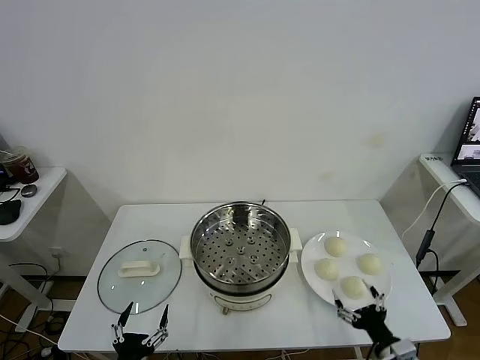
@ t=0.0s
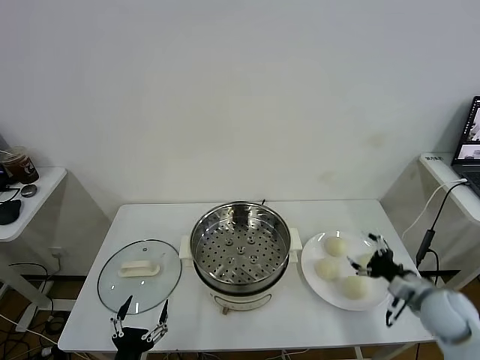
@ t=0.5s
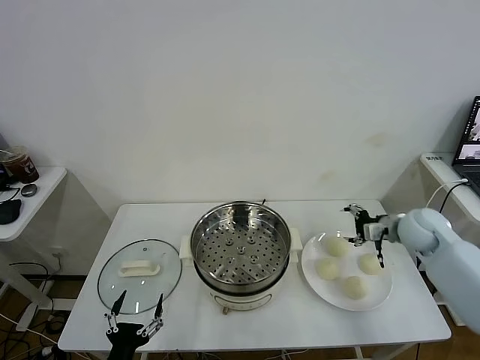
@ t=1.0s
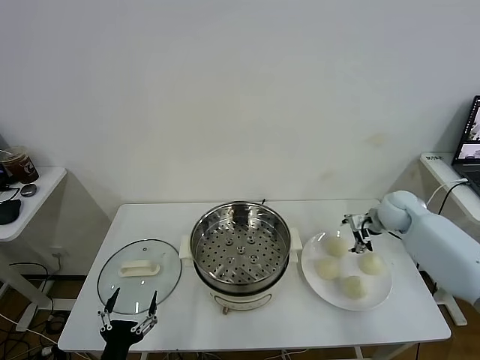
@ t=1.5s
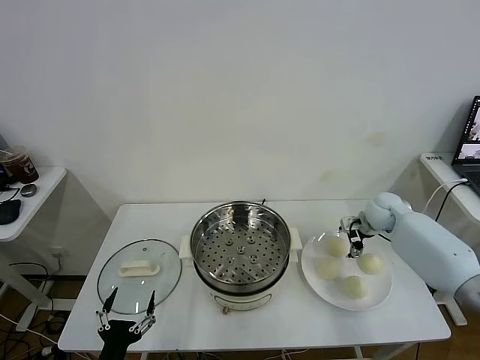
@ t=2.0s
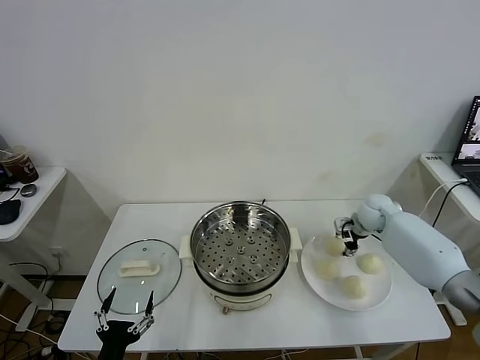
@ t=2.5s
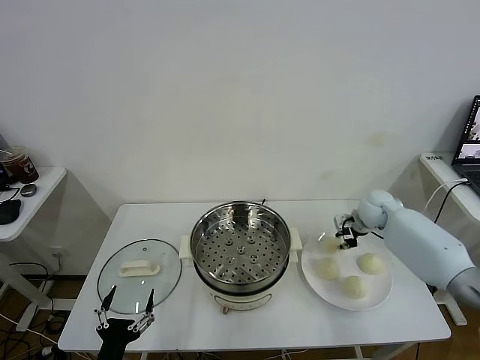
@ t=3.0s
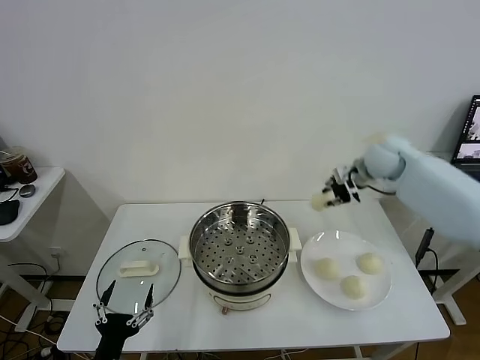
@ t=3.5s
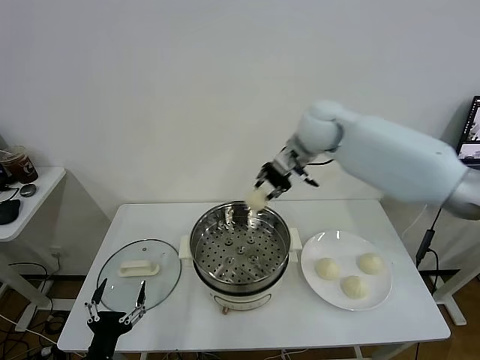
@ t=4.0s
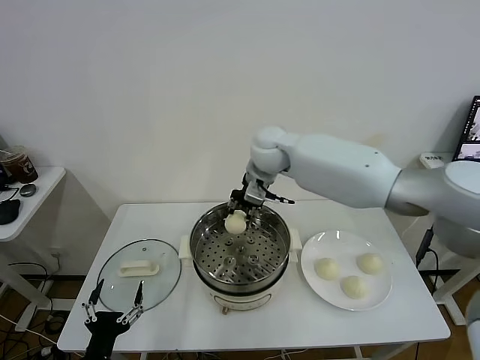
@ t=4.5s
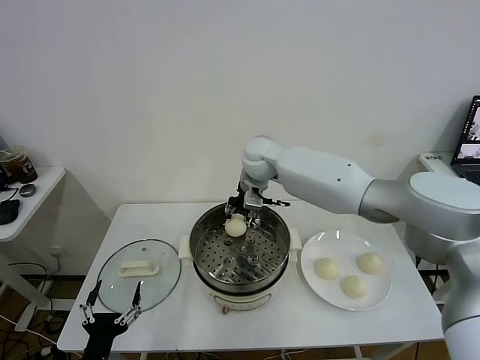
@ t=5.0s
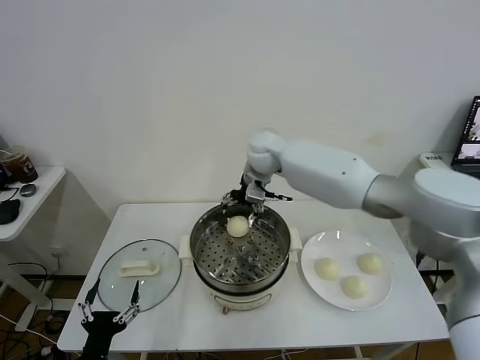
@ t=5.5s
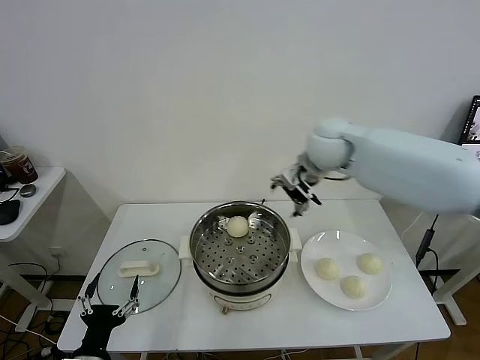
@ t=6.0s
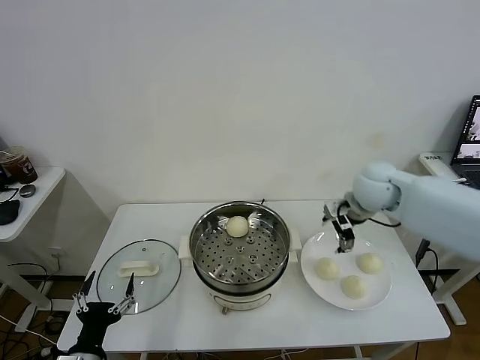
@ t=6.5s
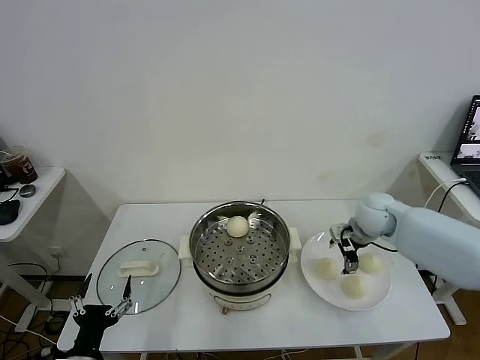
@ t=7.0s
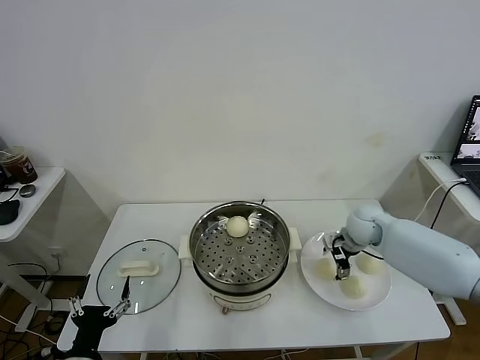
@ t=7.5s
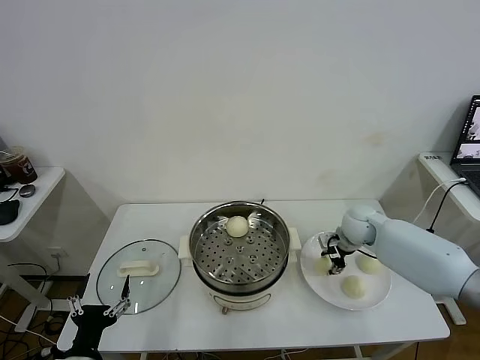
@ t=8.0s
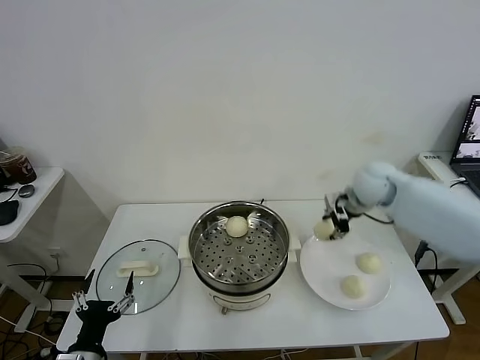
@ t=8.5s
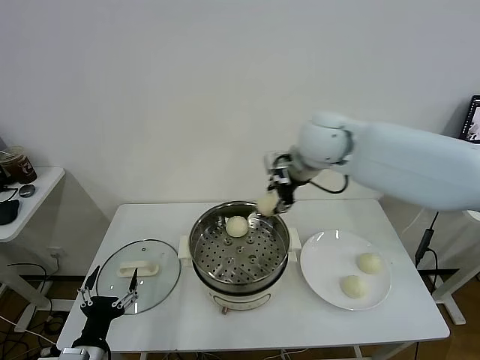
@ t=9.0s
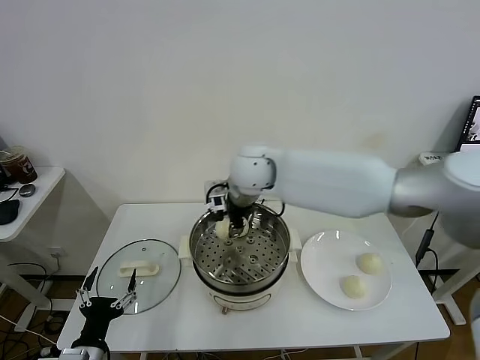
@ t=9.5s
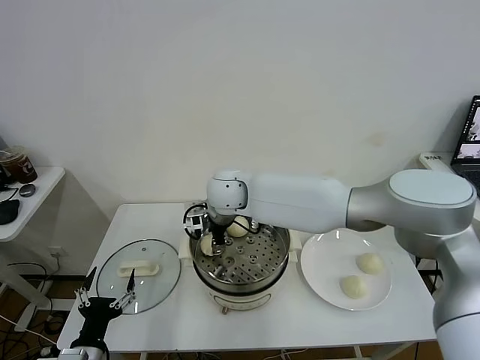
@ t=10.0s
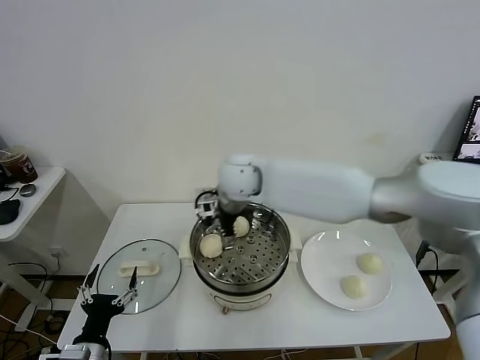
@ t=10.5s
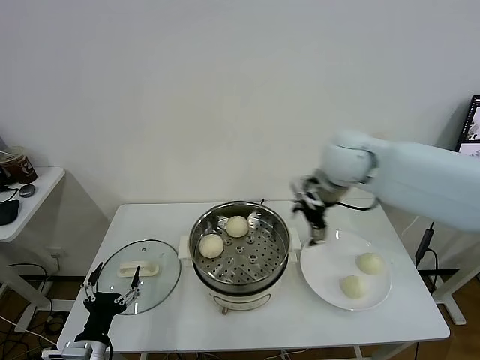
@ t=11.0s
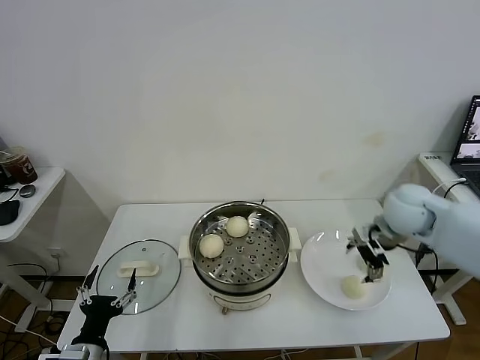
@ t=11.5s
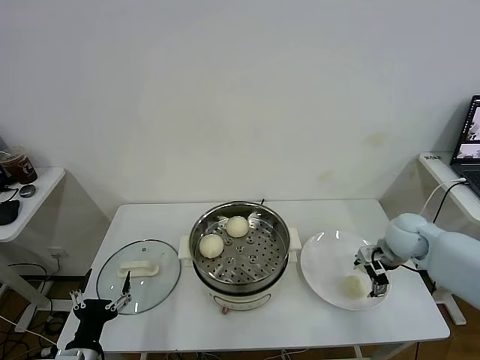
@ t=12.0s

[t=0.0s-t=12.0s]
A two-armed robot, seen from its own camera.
Task of the whole recording: take steamed baozi put them in steamer.
Step, t=0.0s to t=2.5s: Grasp the baozi in the plate with right gripper.
Step, t=3.0s to t=5.5s: Place the baozi on the steamer with right gripper.
Step, t=6.0s to t=7.5s: Grasp the baozi in the plate with right gripper.
Step, t=8.5s to t=10.0s: Place the baozi on the steamer with right gripper.
t=2.0s to t=4.0s: The right gripper shifts about 30 cm upward and to the left, and closes.
t=4.0s to t=6.0s: The right gripper reaches about 10 cm to the left, then returns, and opens.
t=6.0s to t=8.0s: The right gripper shifts about 25 cm downward and to the right, and closes its fingers.
t=8.0s to t=10.0s: The right gripper travels to the left by about 35 cm.
t=10.0s to t=12.0s: The right gripper shifts about 40 cm to the right, and opens its fingers.

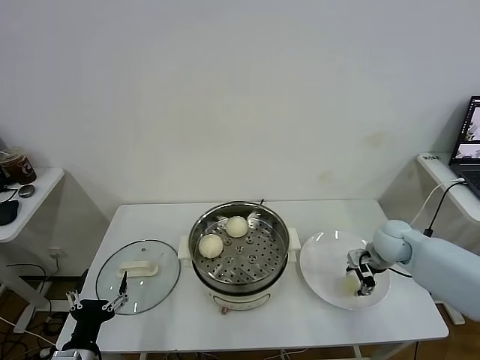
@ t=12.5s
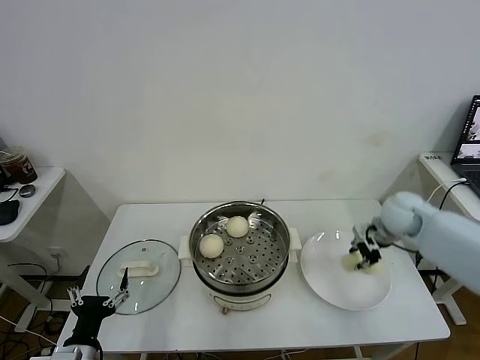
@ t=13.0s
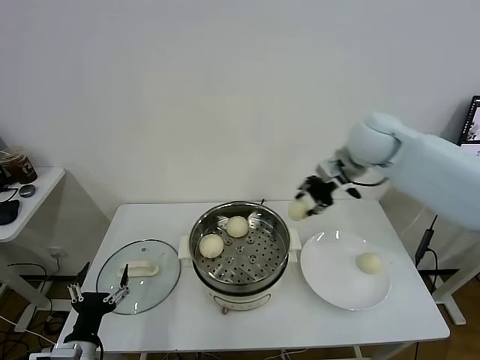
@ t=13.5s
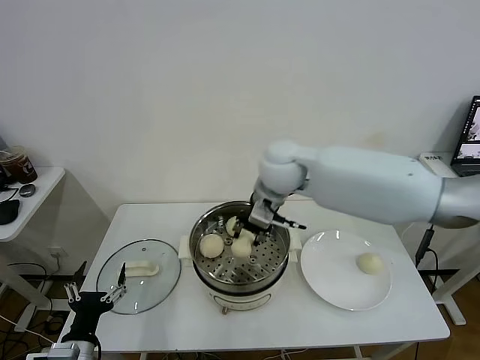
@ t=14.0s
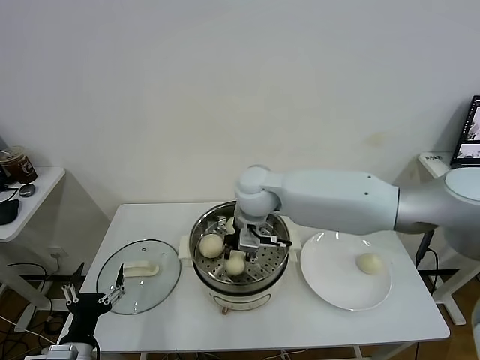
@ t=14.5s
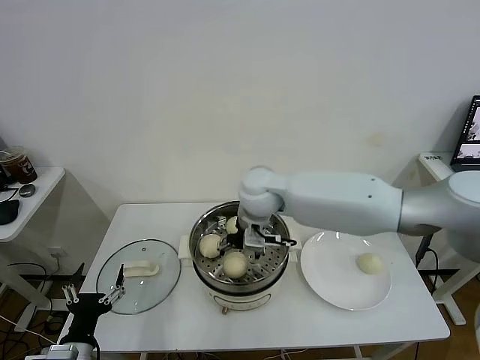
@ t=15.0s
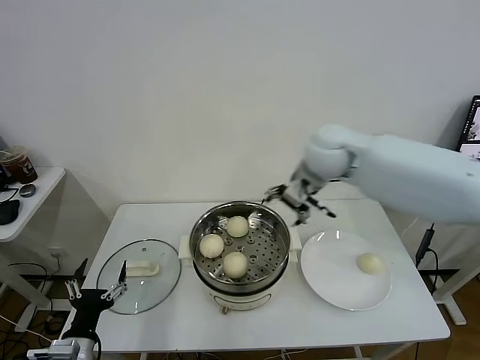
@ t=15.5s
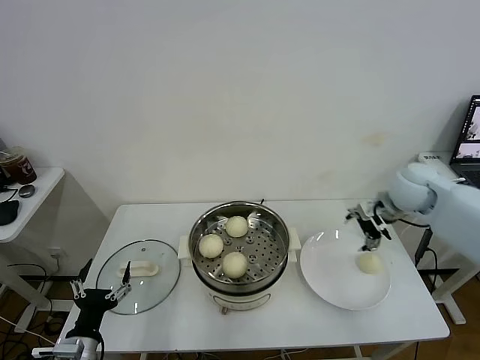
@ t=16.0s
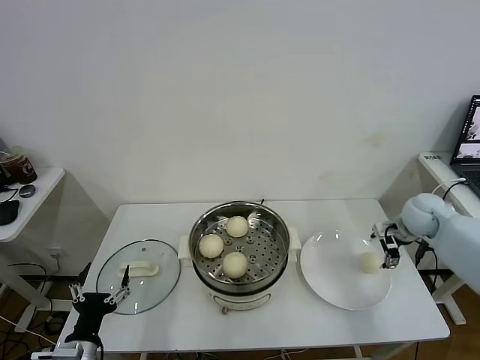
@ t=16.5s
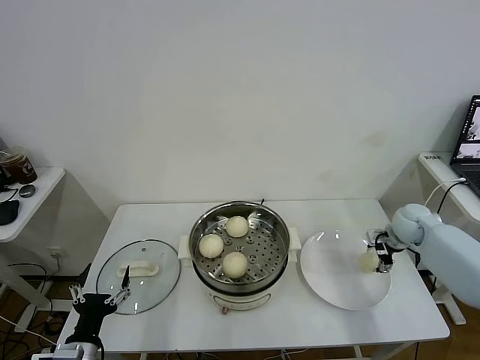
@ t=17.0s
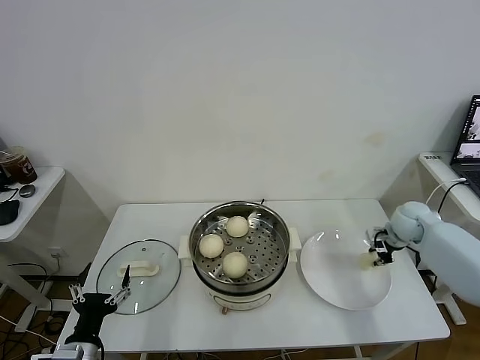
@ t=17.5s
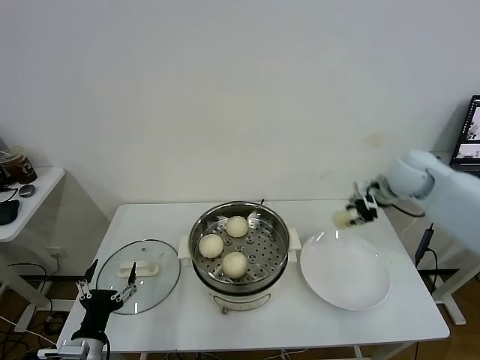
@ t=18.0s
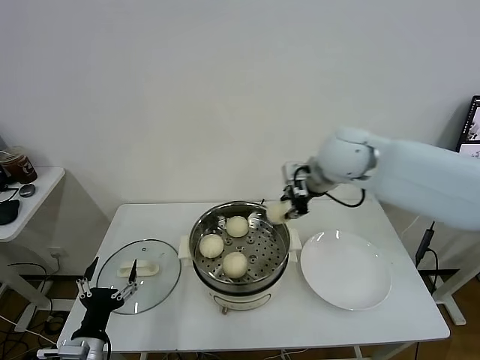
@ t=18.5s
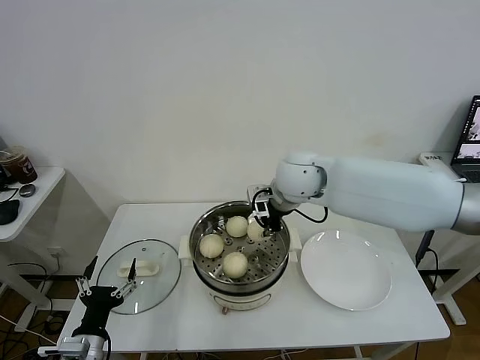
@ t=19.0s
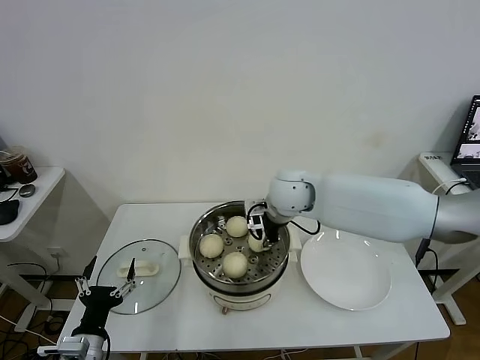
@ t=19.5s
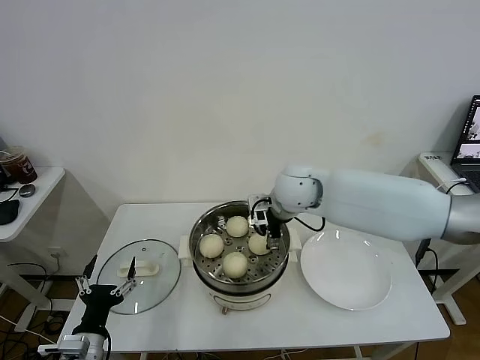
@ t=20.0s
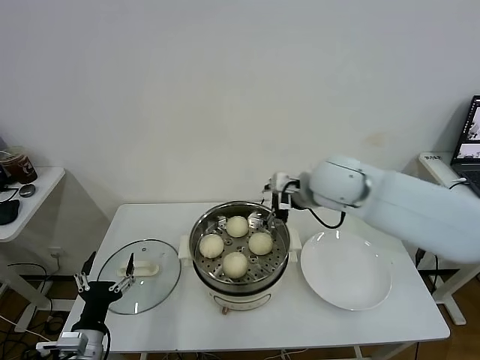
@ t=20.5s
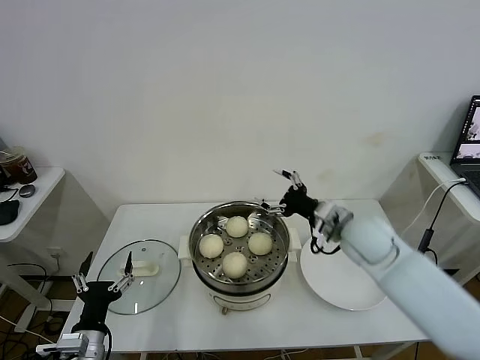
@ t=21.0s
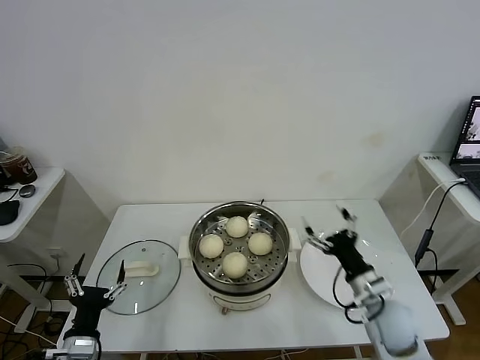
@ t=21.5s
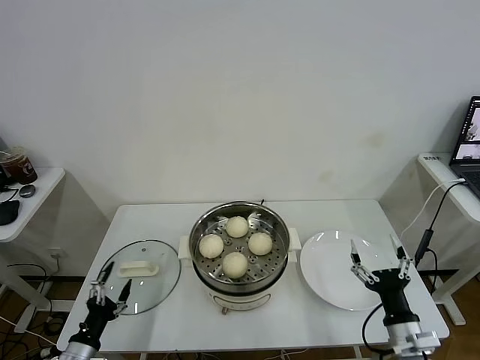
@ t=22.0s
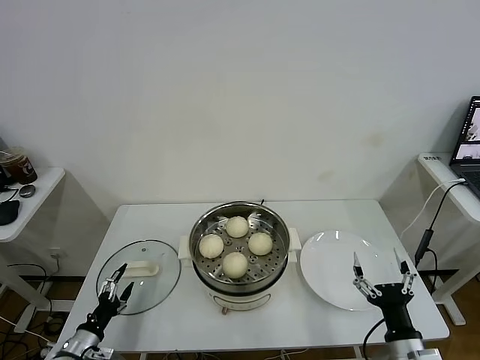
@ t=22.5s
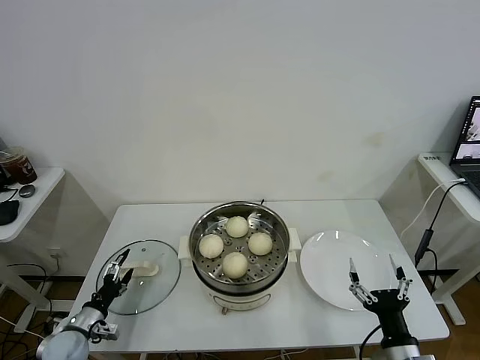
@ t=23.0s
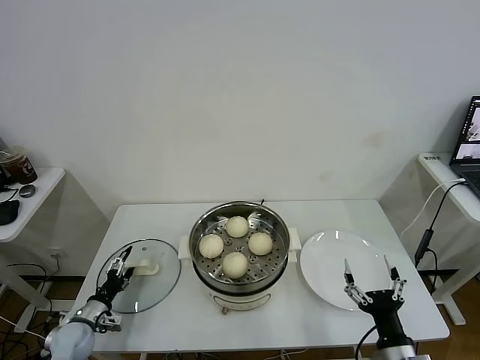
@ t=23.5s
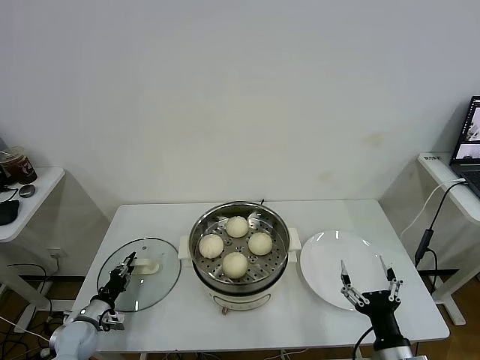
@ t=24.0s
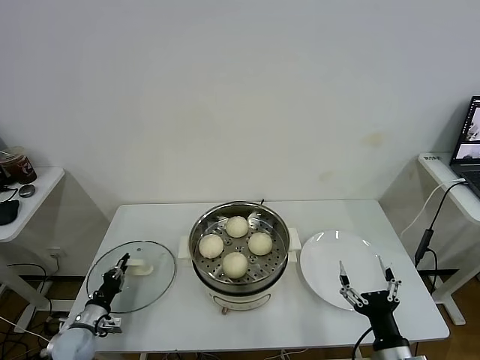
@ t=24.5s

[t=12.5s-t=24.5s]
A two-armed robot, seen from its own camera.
Task of the whole recording: take steamed baozi put them in steamer.
Step, t=13.0s to t=15.0s: Place the baozi on the steamer with right gripper.
Step, t=15.5s to t=17.0s: Grasp the baozi in the plate with right gripper.
Step, t=17.5s to t=20.0s: Place the baozi on the steamer with right gripper.
Step, t=20.5s to t=24.0s: Grasp the pot lid with left gripper.
t=12.5s to t=14.5s: The right gripper heads to the left and upward, covering about 35 cm.
t=14.5s to t=16.5s: The right gripper heads to the right, covering about 40 cm, and opens.
t=16.5s to t=18.5s: The right gripper is displaced to the left and upward by about 30 cm, and closes its fingers.
t=18.5s to t=20.5s: The right gripper opens.
t=20.5s to t=22.5s: The right gripper moves backward, downward and to the right, about 40 cm. Meanwhile the left gripper shifts roughly 10 cm downward and to the left.
t=22.5s to t=24.5s: The left gripper travels forward by some 10 cm, and closes its fingers.

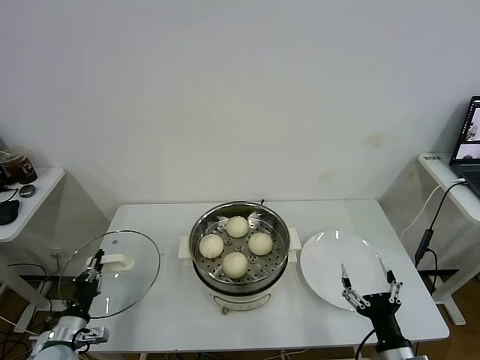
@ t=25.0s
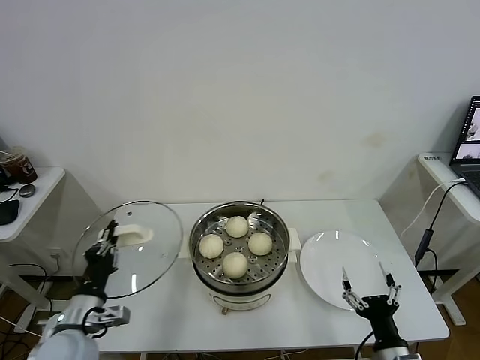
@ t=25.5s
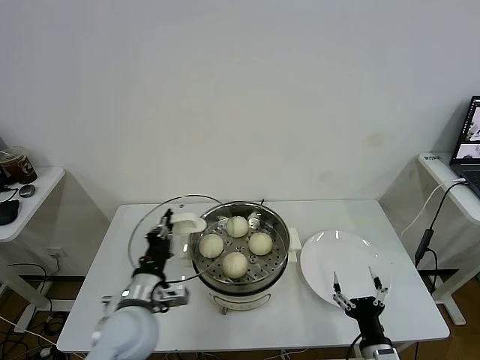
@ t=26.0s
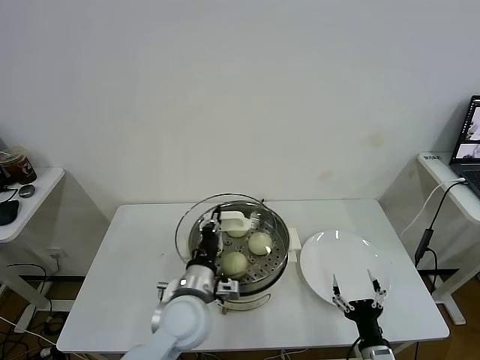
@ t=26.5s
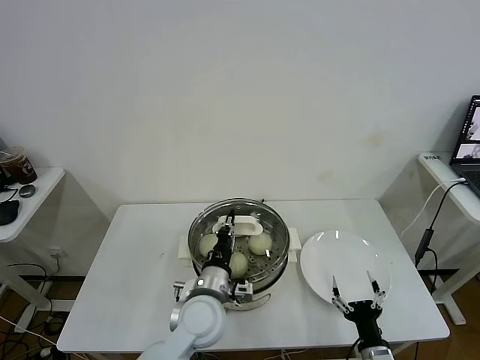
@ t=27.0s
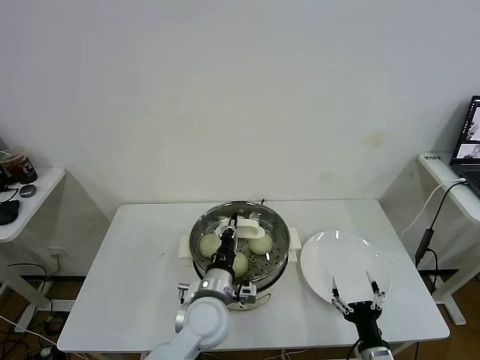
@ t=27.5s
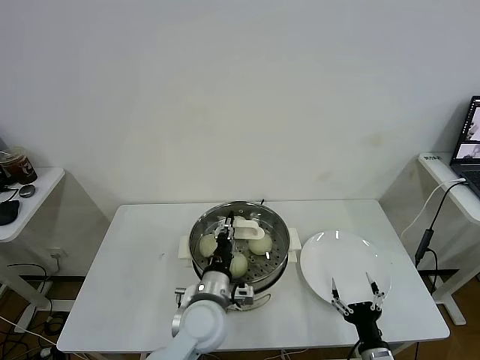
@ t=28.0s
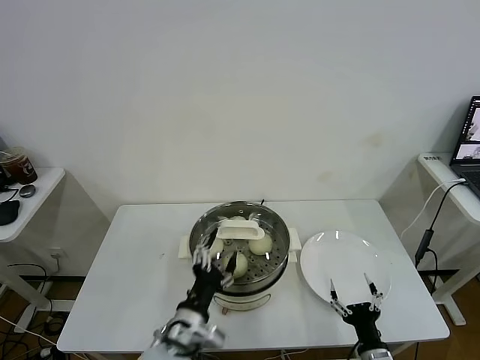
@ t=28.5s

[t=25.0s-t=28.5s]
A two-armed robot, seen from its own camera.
Task of the whole recording: take steamed baozi put them in steamer.
t=25.0s to t=27.0s: The right gripper moves downward, some 5 cm, while the left gripper is displaced to the right by roughly 35 cm.
t=27.0s to t=28.5s: The left gripper heads backward, covering approximately 10 cm, and opens its fingers.
